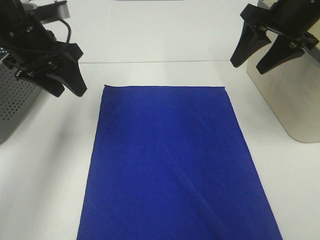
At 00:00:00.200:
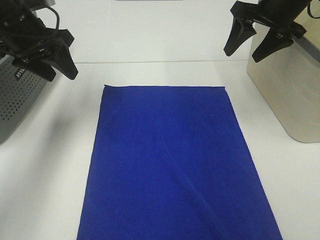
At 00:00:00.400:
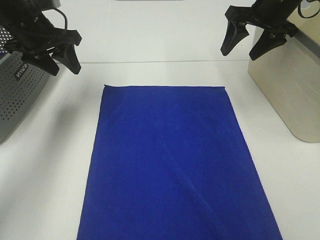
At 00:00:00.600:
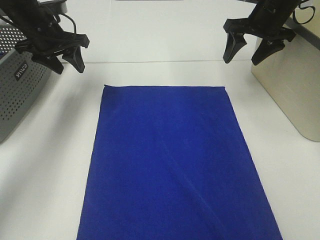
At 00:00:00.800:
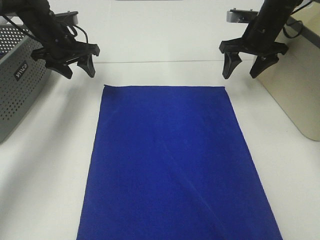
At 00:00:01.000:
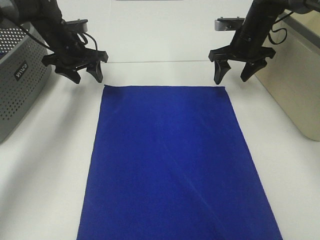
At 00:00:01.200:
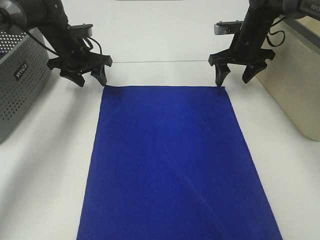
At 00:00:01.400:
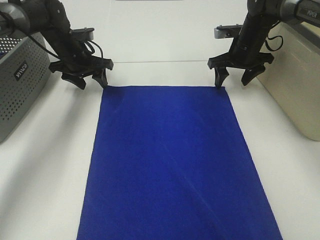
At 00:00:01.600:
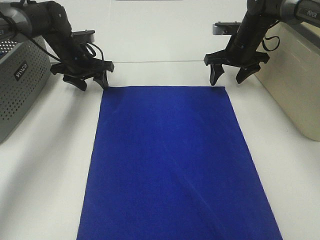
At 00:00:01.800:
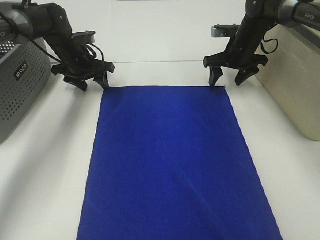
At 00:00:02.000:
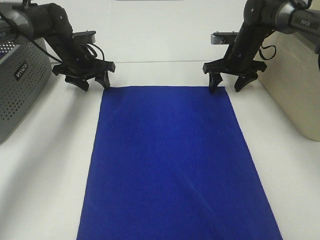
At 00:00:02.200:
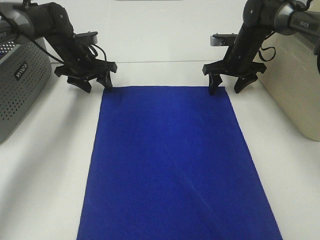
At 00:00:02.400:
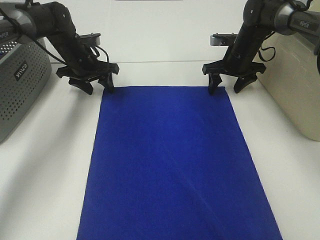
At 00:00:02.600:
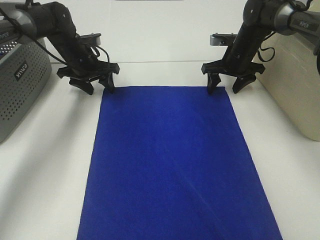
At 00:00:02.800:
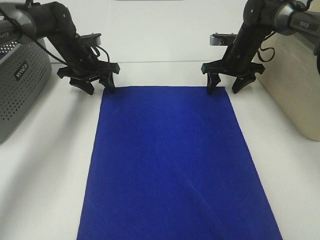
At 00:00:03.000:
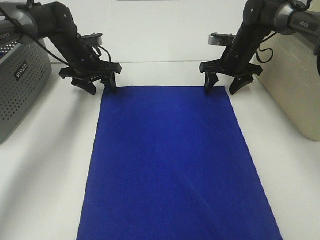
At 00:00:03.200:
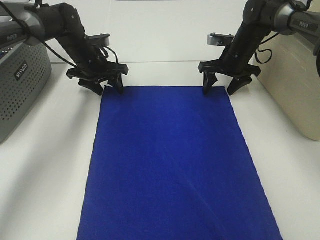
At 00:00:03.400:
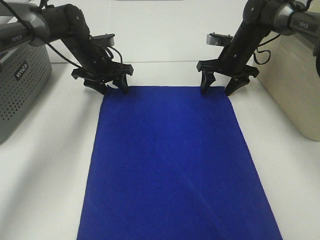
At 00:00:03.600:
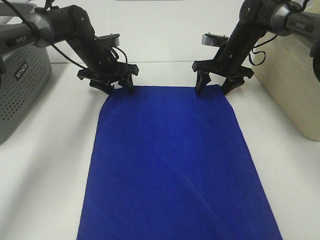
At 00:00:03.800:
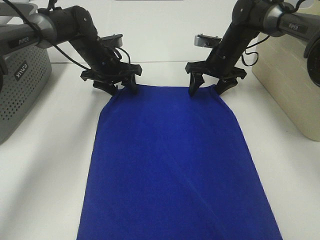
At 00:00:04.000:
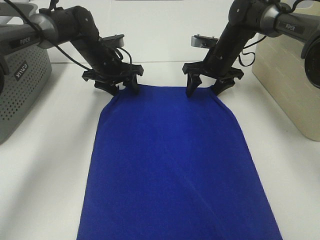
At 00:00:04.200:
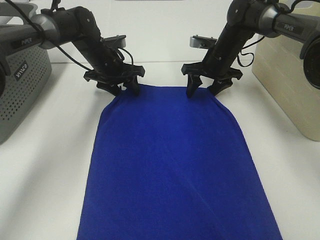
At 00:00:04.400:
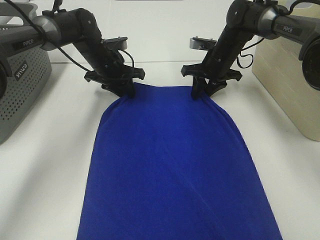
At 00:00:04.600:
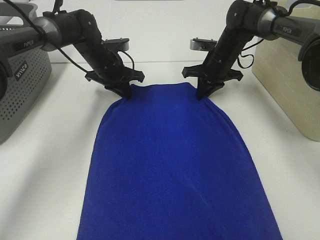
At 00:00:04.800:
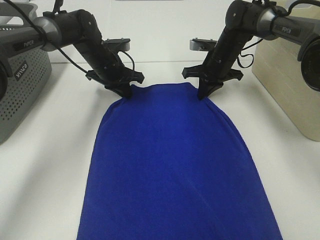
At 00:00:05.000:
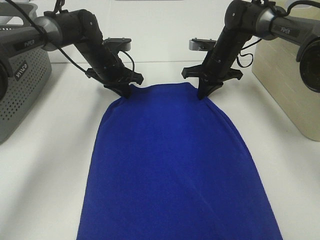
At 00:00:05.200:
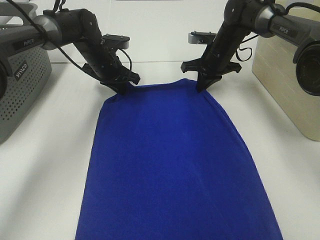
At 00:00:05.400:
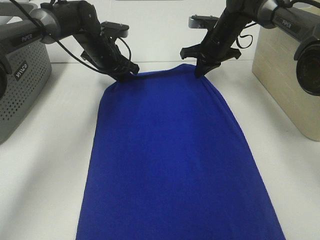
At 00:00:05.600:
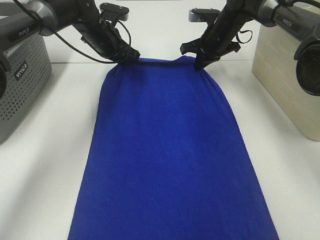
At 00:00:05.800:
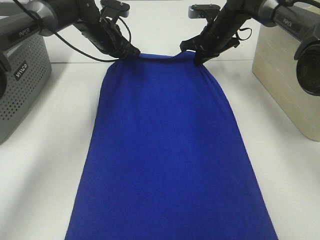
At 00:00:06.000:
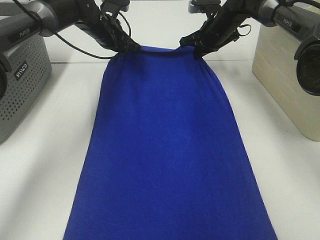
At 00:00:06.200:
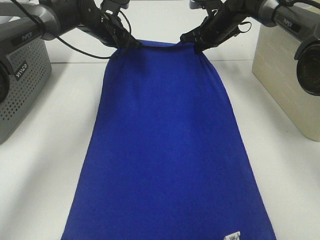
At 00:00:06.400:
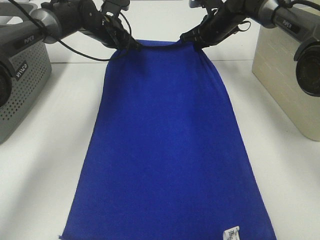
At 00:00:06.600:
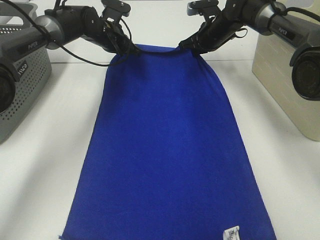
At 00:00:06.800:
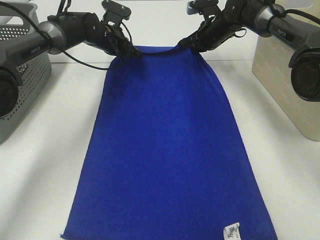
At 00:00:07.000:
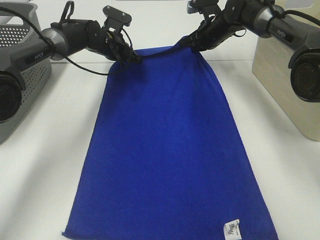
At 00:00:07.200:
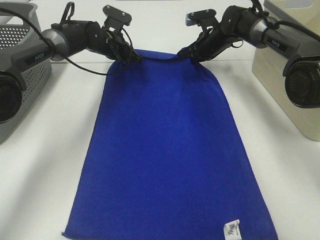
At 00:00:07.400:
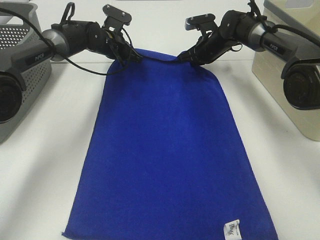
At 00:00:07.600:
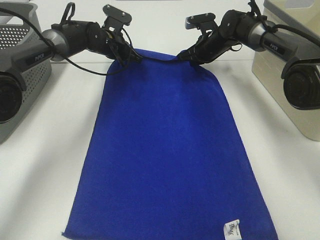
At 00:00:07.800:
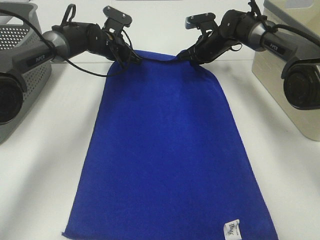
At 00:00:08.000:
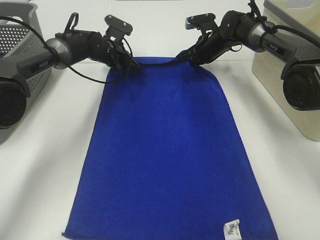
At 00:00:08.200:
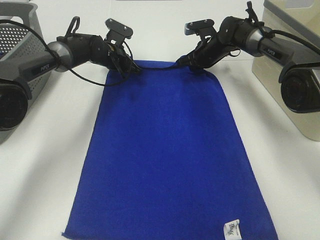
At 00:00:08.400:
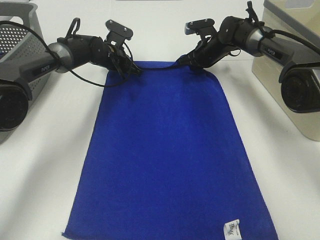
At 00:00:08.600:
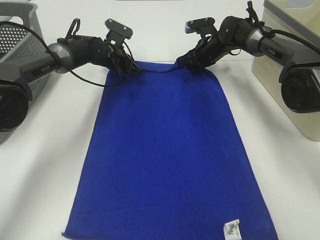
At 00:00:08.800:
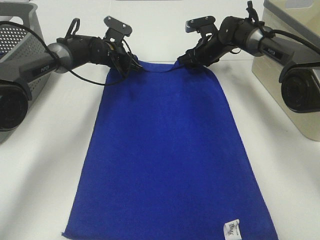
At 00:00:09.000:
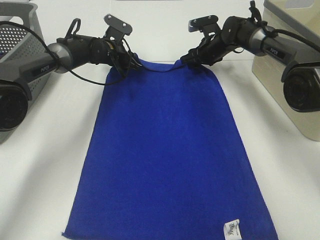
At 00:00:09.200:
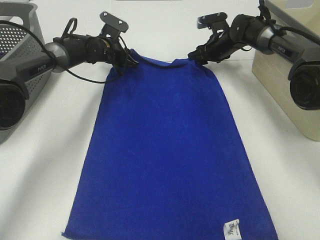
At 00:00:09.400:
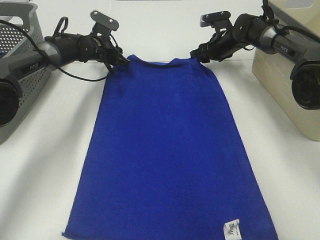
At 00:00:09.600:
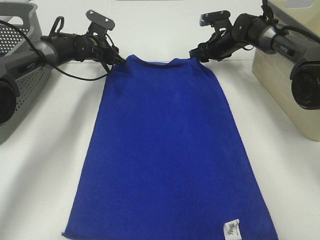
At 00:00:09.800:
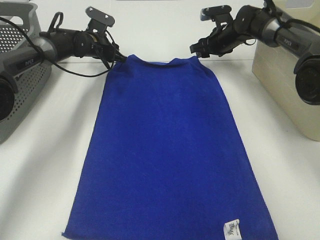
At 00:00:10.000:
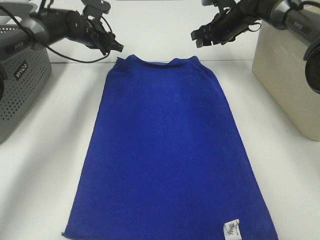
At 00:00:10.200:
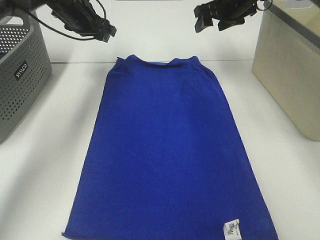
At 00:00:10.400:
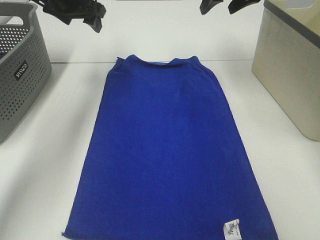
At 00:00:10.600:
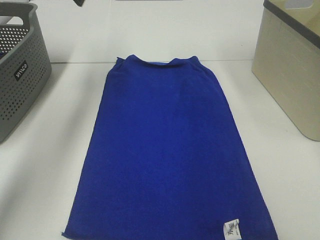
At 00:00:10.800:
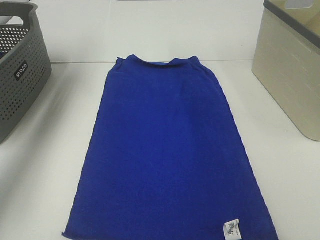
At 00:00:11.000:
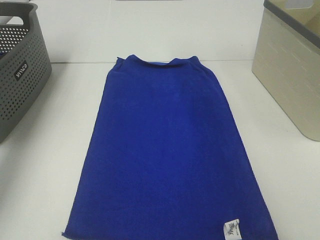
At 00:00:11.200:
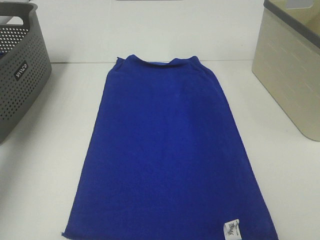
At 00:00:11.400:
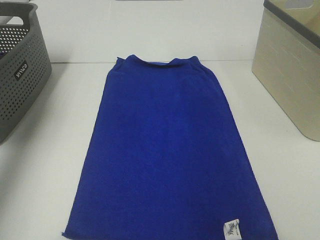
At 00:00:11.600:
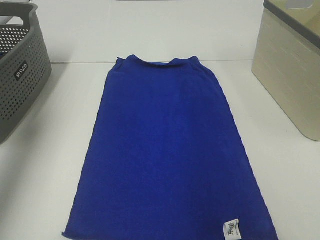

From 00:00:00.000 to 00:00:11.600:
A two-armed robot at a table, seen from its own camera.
Task of the whole recording: Remove the towel and place it.
Step, from 00:00:00.000 to 00:00:03.000: Left hand:adjust the blue towel.
Step, from 00:00:00.000 to 00:00:03.000: Right hand:adjust the blue towel.
From 00:00:00.000 to 00:00:01.400: The left gripper is displaced forward and downward by approximately 20 cm; the right gripper goes roughly 20 cm downward and forward.
From 00:00:01.400 to 00:00:02.800: The grippers make only small movements.
From 00:00:02.800 to 00:00:04.400: The left gripper travels to the right by roughly 5 cm, and closes its fingers, while the right gripper closes up.
From 00:00:04.400 to 00:00:05.800: The grippers both shift upward by approximately 5 cm. The right gripper closes up.
From 00:00:05.800 to 00:00:07.200: The right gripper shifts by approximately 5 cm, while the left gripper shifts by approximately 5 cm.
From 00:00:07.200 to 00:00:08.800: The right gripper opens, while the left gripper opens its fingers.
From 00:00:08.800 to 00:00:10.200: The right gripper moves upward, about 15 cm. Meanwhile the left gripper goes about 15 cm upward and to the left.
From 00:00:10.200 to 00:00:11.600: The left gripper shifts approximately 35 cm backward, upward and to the left, while the right gripper travels backward and upward by approximately 40 cm.

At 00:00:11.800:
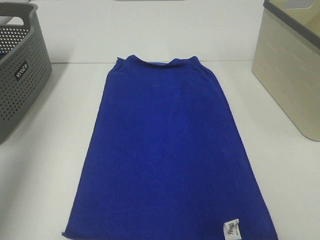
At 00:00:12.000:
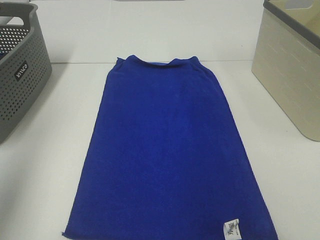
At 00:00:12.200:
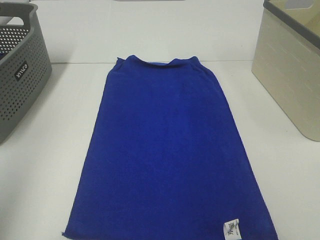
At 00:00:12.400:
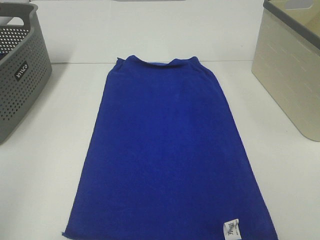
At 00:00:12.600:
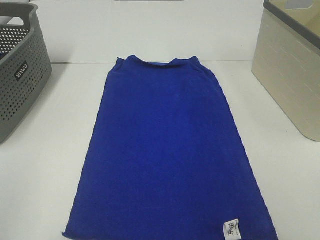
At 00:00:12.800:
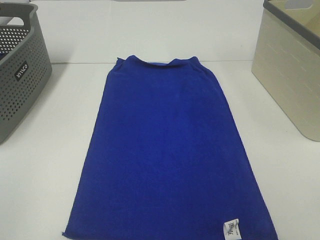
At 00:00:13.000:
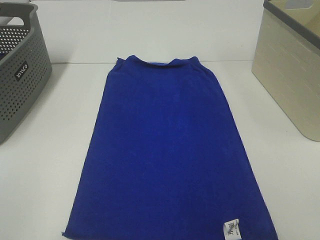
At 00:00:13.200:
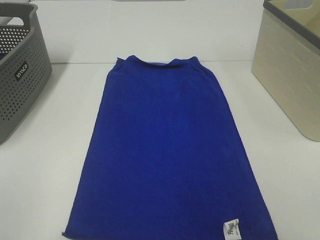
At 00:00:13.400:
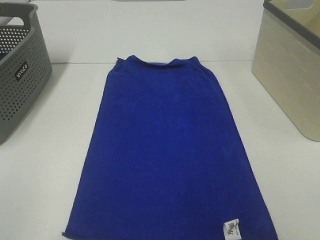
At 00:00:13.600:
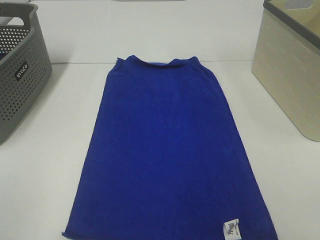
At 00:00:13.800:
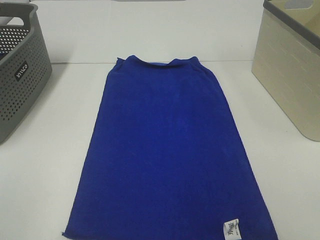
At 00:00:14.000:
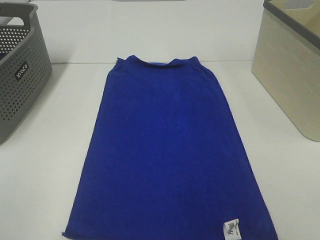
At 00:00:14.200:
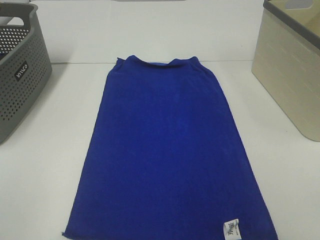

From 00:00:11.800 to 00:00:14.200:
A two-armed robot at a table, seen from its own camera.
Task of the whole recording: Remove the towel and place it.
From 00:00:11.800 to 00:00:13.000: The left gripper shifts approximately 25 cm backward and downward.
From 00:00:13.000 to 00:00:14.200: Neither gripper changes place.
